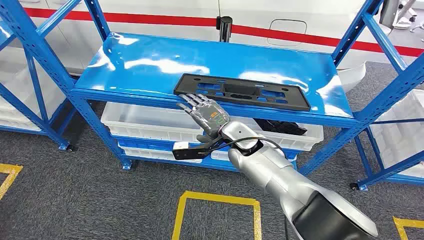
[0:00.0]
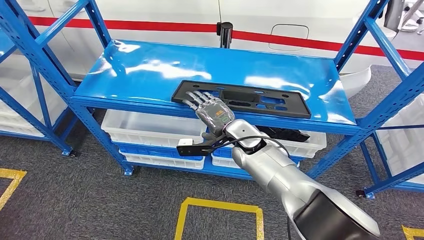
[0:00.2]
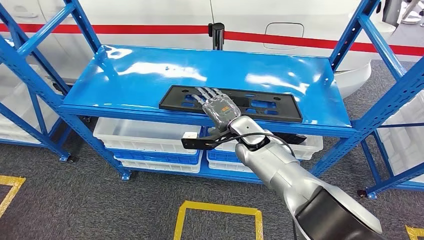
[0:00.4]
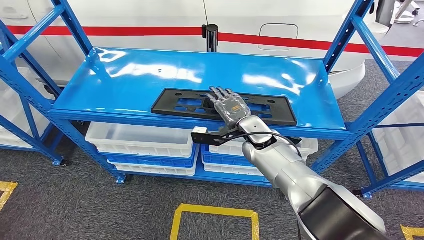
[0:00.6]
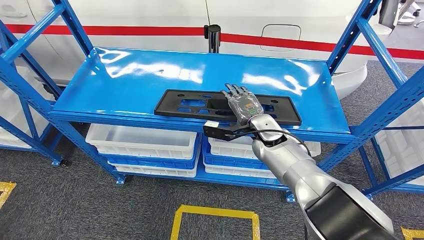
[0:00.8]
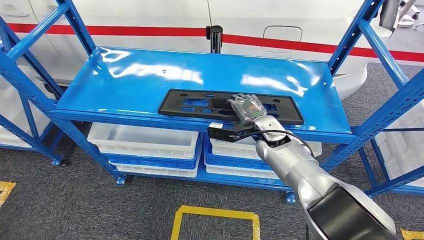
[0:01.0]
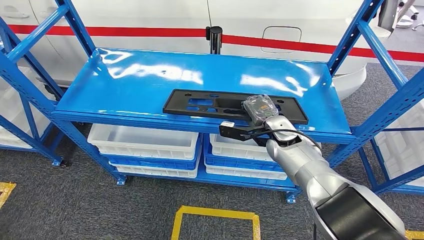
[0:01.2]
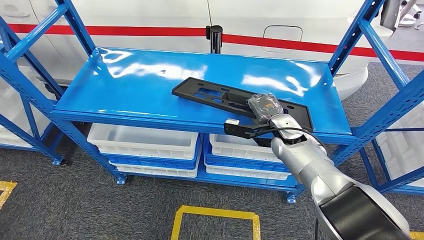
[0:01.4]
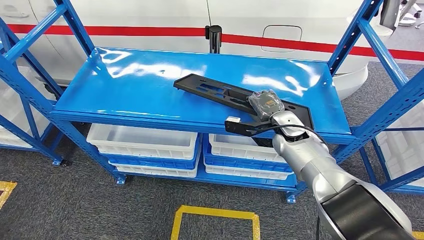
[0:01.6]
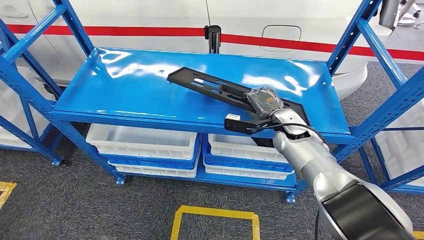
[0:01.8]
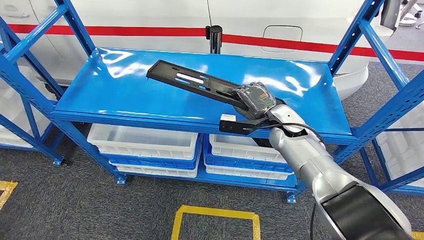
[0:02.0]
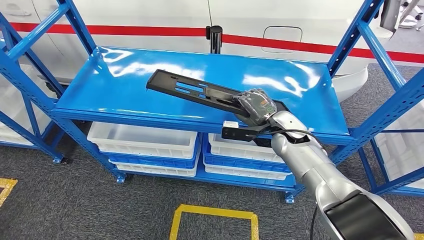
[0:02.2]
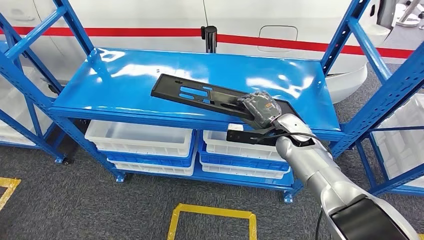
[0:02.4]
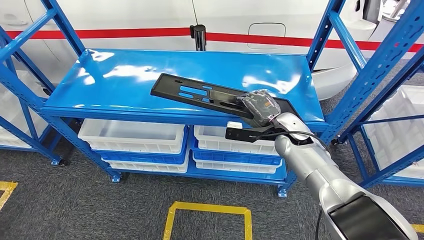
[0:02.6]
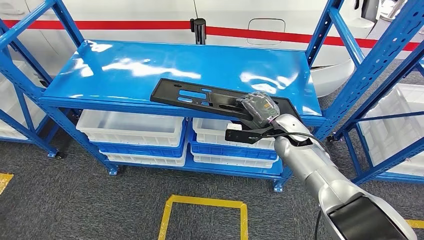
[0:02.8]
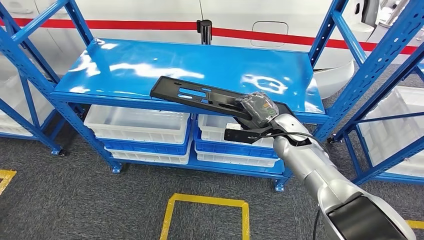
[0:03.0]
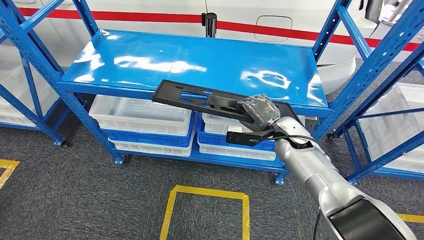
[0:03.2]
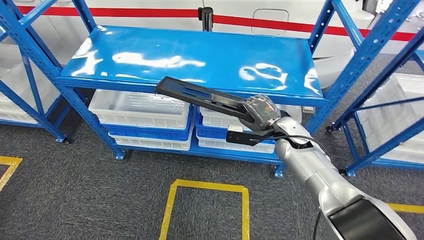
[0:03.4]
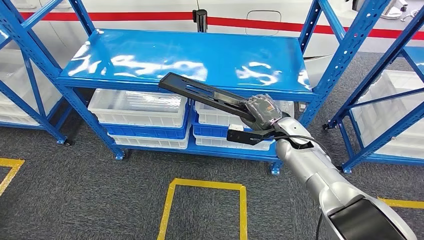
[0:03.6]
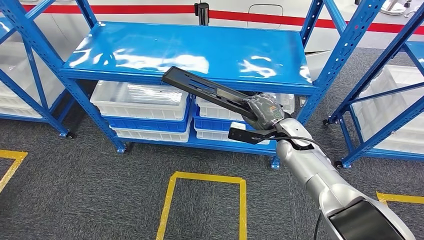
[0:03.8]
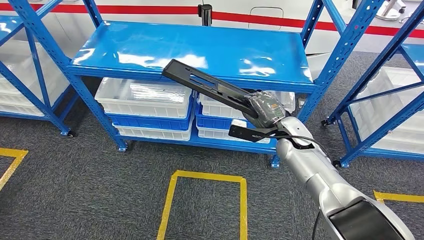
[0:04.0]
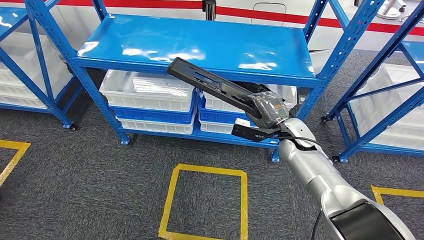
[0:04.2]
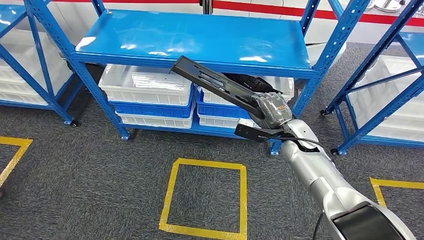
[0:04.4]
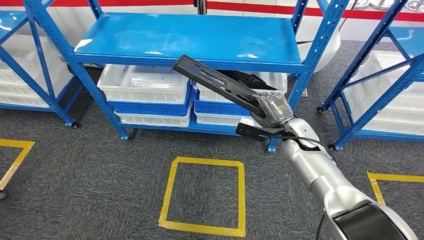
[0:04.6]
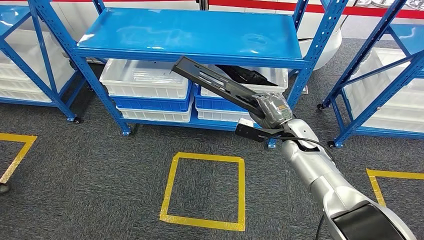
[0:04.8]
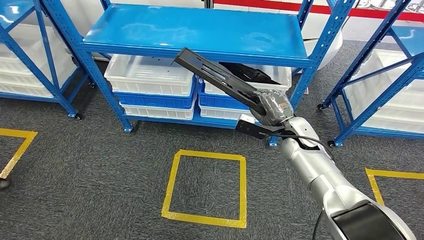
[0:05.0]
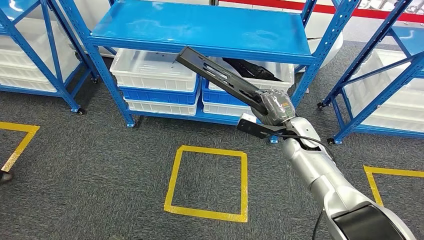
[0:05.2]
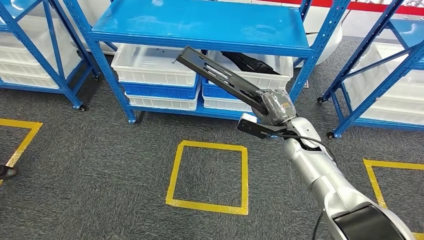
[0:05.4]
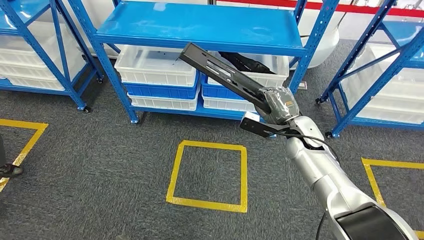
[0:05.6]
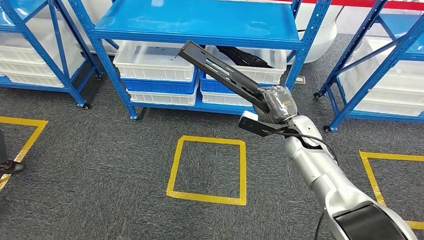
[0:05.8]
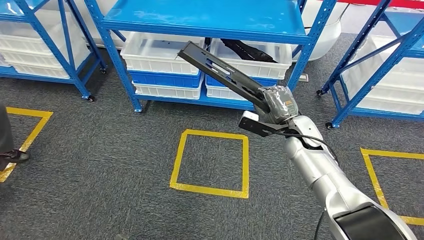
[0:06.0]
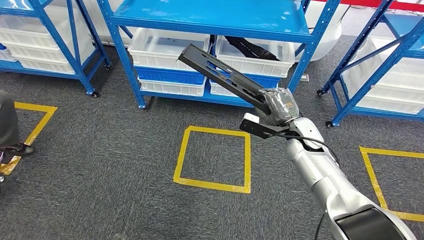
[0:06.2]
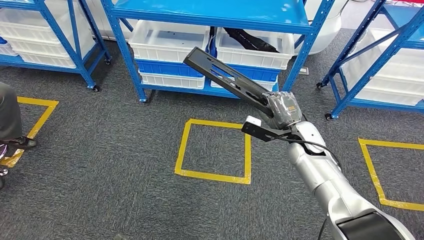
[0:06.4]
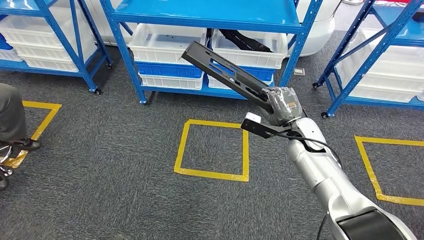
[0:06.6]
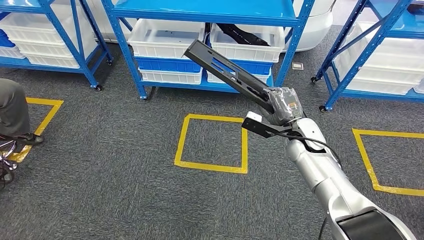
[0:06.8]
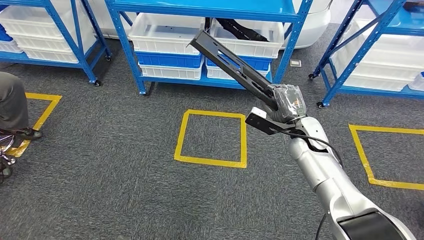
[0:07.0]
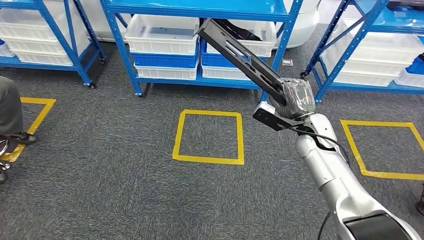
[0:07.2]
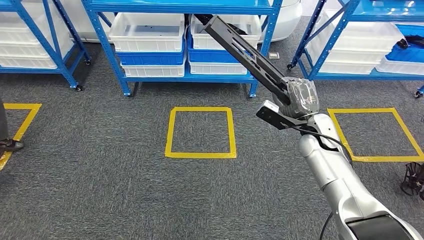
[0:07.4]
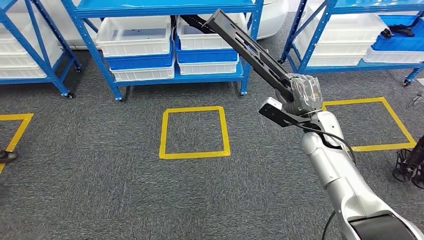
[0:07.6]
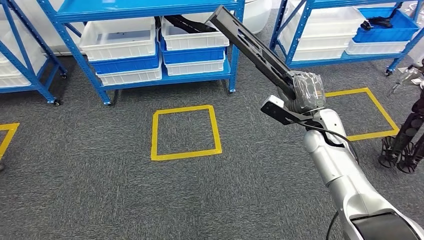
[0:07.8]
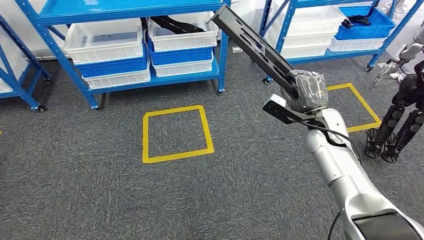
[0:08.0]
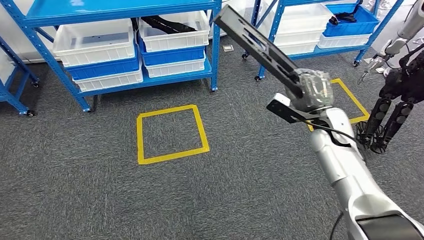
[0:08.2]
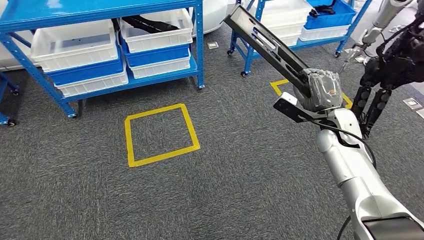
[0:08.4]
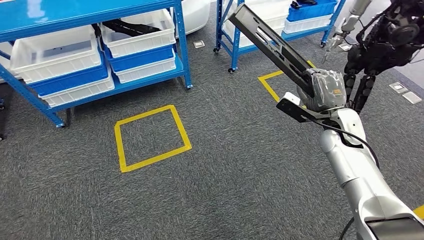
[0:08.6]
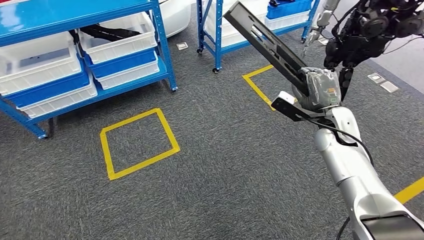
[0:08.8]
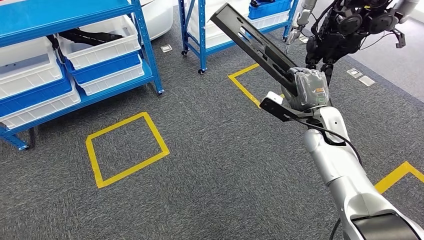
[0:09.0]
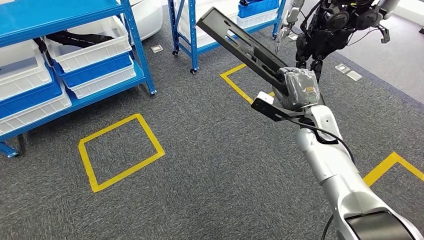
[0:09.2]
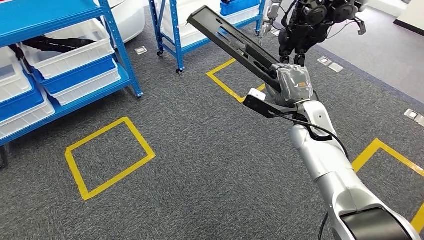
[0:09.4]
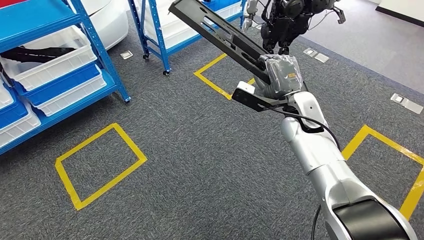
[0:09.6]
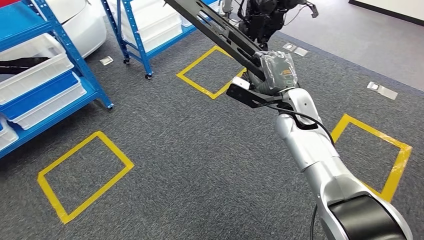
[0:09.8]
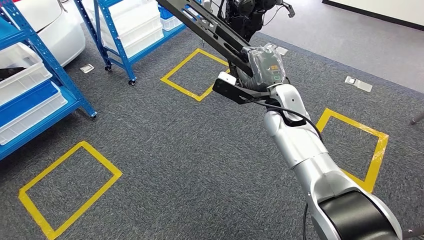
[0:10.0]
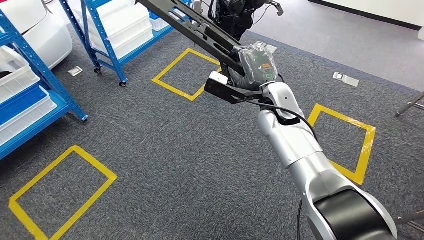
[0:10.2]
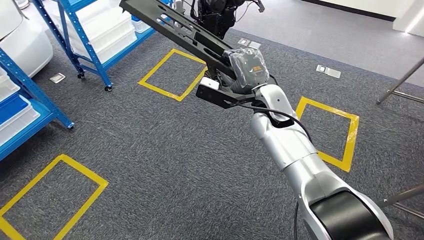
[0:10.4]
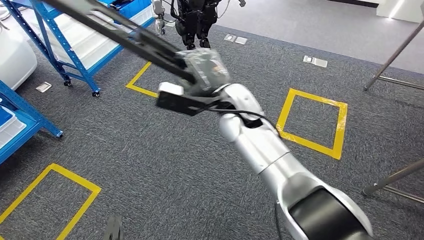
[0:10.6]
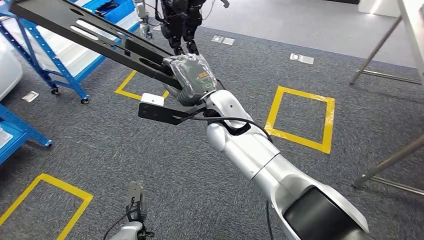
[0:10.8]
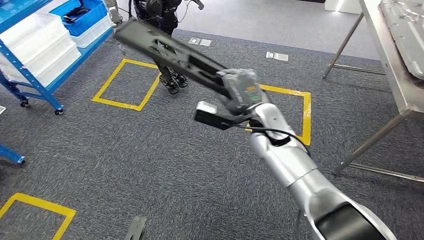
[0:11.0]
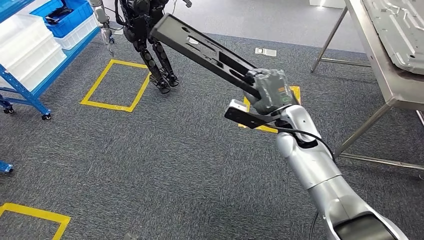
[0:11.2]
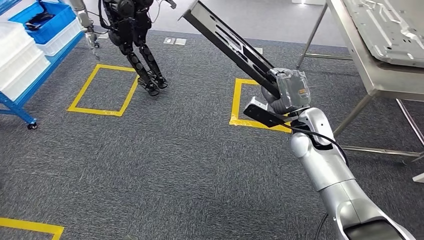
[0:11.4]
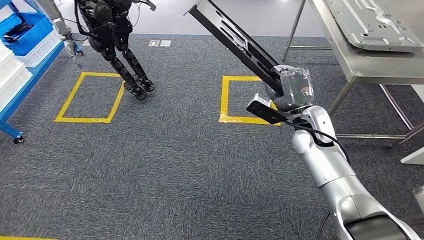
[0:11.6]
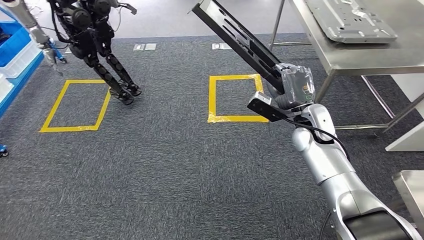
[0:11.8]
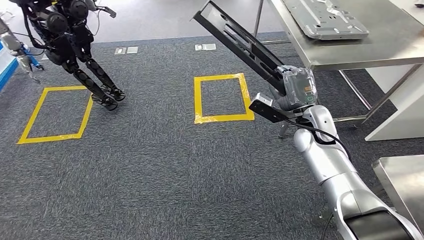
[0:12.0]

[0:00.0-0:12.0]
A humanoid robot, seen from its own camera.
Step, 0:00.0 to 0:04.8: Pick up the large material from the shelf.

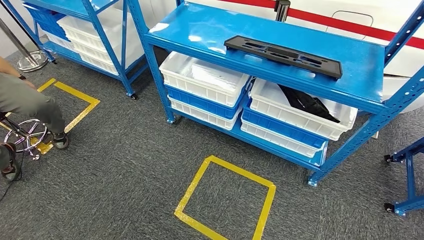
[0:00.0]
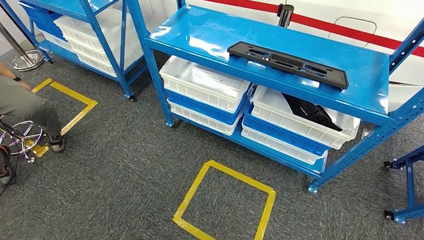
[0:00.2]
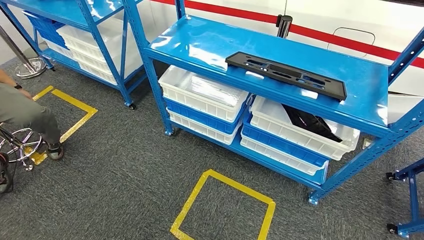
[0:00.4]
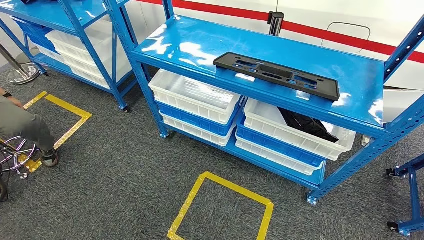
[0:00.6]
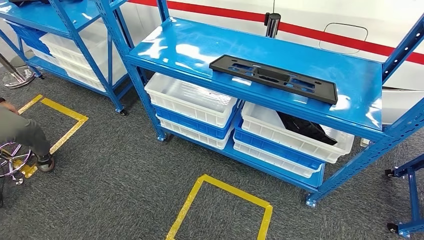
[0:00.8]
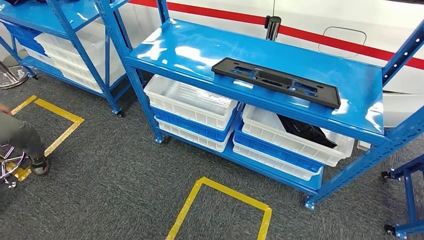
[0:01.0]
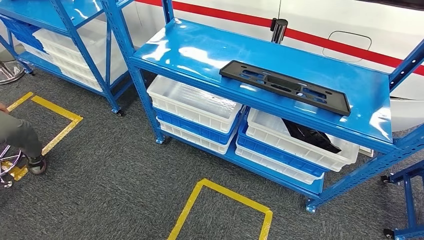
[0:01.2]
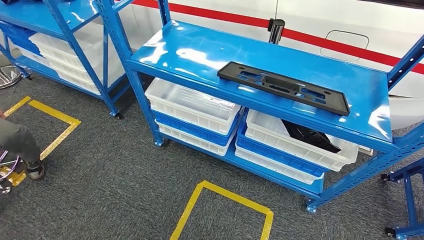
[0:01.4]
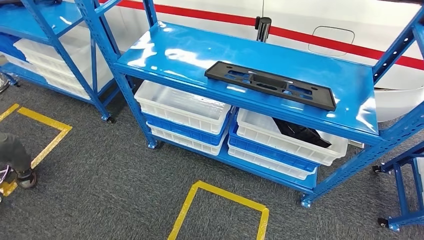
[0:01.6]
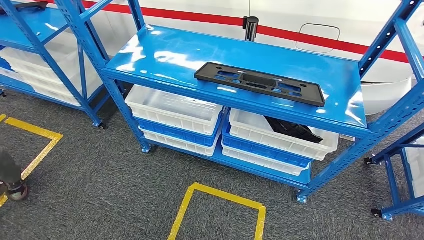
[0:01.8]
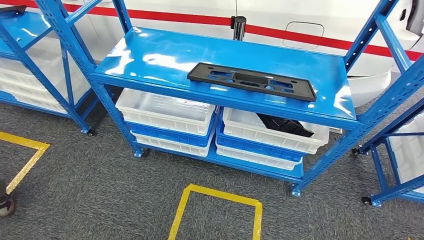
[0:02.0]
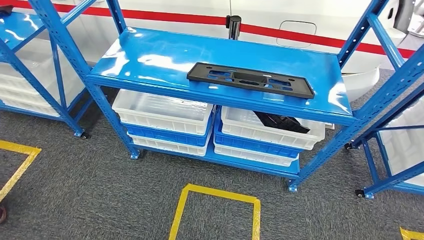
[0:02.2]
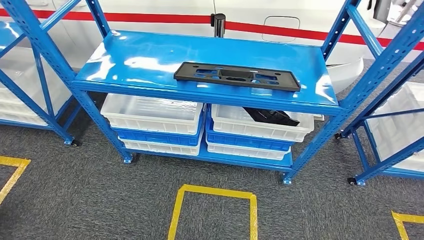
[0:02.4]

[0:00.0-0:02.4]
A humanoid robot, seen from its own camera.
Step, 0:00.0 to 0:02.4: Move to the initial position of the shelf.
